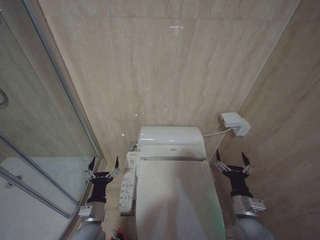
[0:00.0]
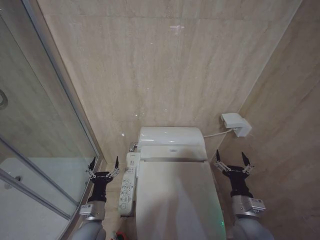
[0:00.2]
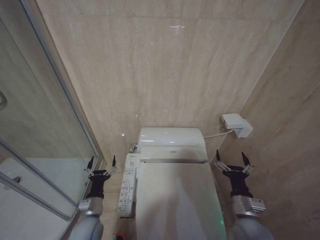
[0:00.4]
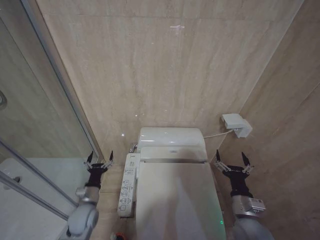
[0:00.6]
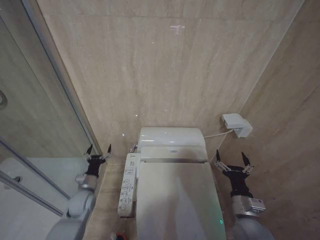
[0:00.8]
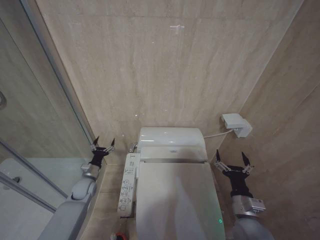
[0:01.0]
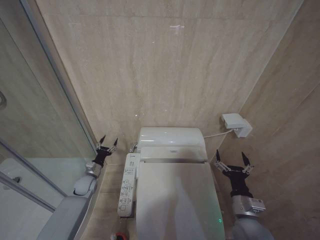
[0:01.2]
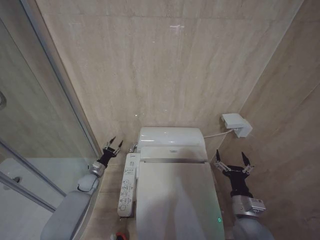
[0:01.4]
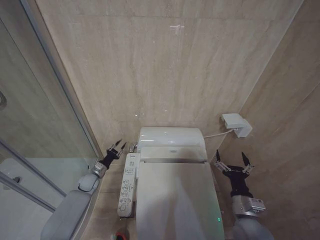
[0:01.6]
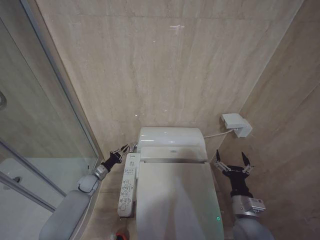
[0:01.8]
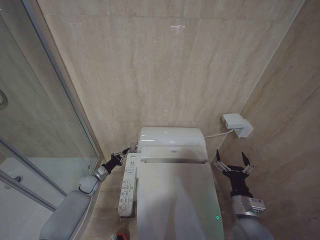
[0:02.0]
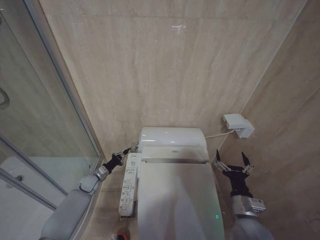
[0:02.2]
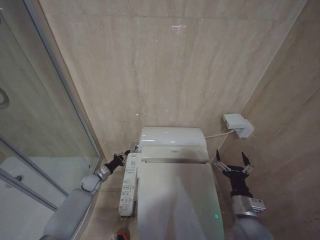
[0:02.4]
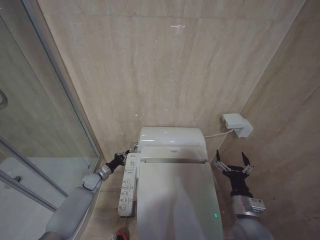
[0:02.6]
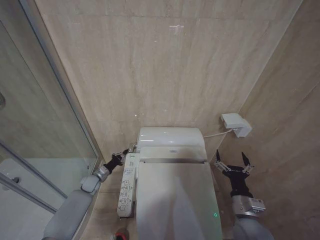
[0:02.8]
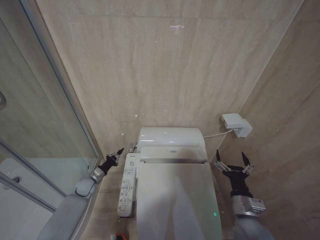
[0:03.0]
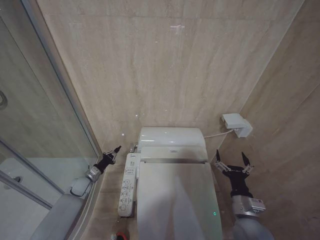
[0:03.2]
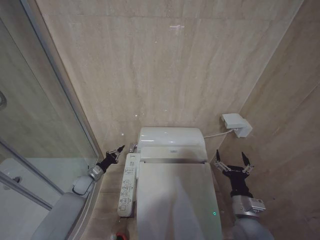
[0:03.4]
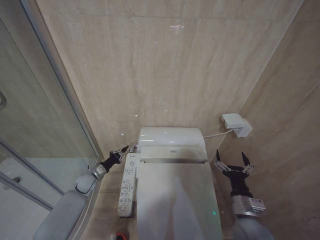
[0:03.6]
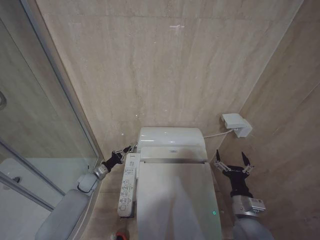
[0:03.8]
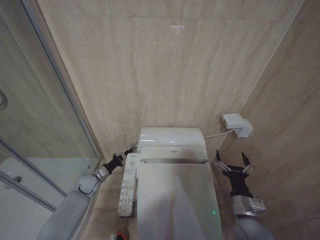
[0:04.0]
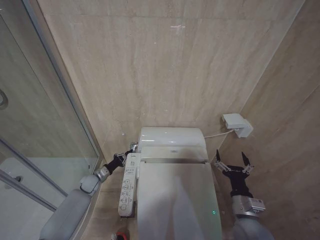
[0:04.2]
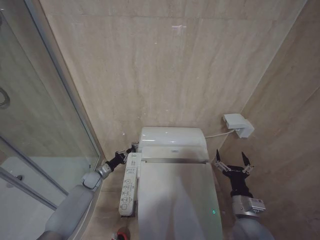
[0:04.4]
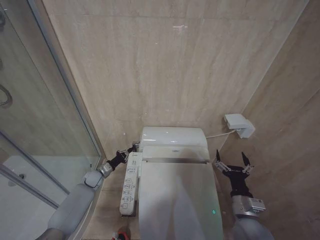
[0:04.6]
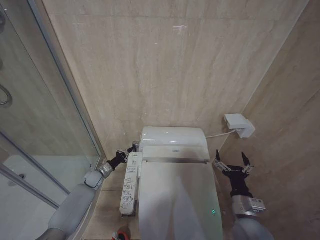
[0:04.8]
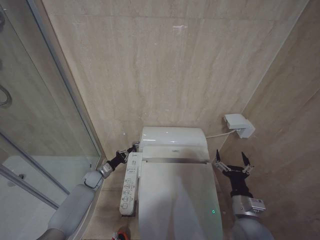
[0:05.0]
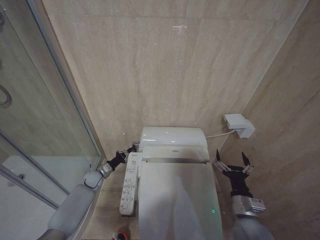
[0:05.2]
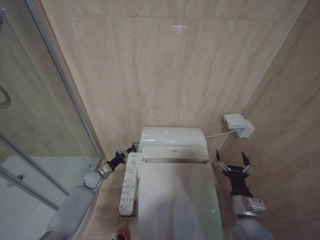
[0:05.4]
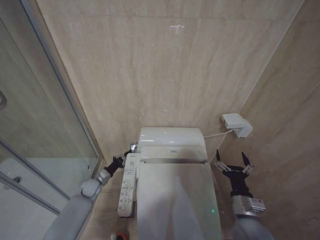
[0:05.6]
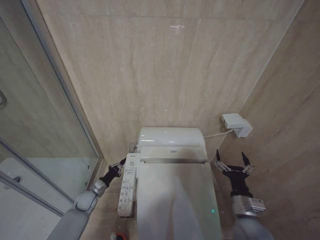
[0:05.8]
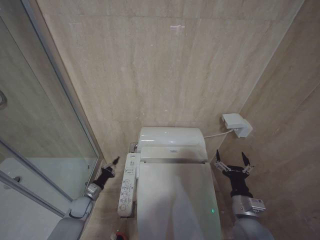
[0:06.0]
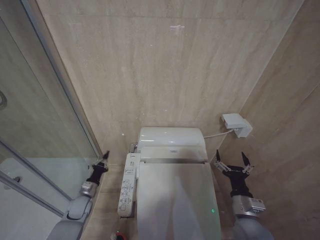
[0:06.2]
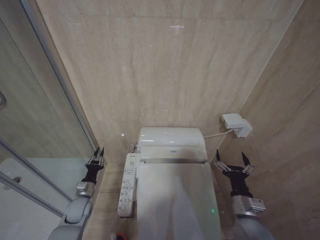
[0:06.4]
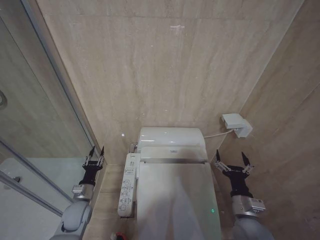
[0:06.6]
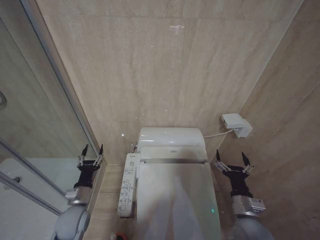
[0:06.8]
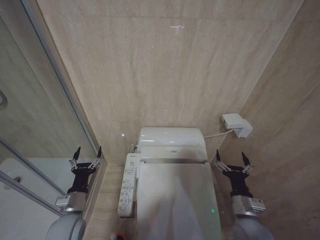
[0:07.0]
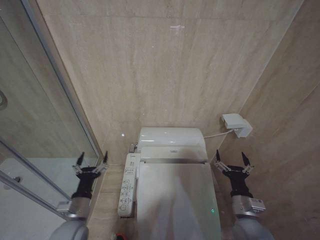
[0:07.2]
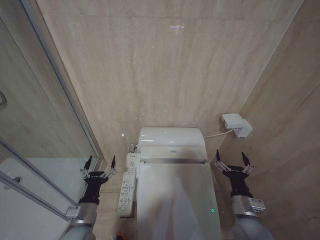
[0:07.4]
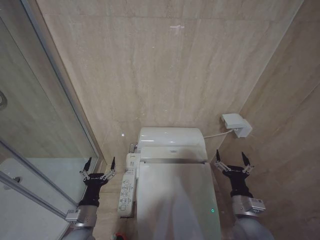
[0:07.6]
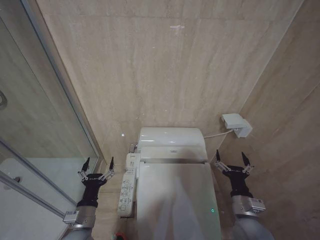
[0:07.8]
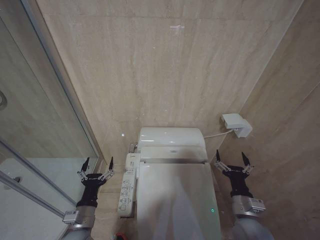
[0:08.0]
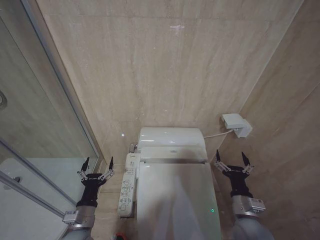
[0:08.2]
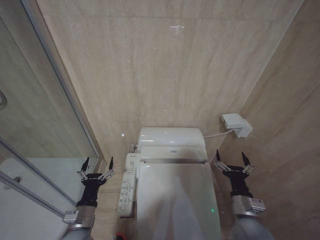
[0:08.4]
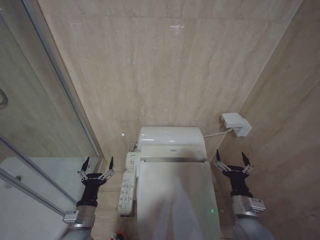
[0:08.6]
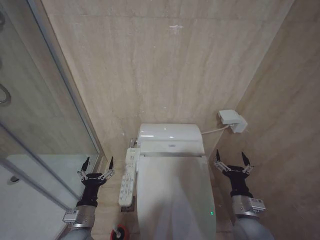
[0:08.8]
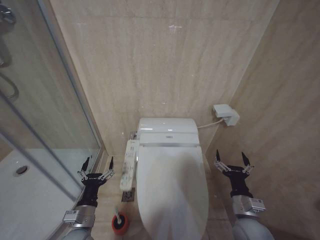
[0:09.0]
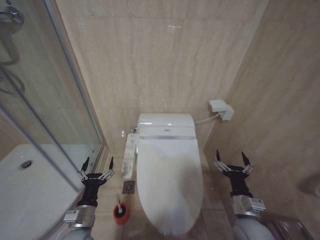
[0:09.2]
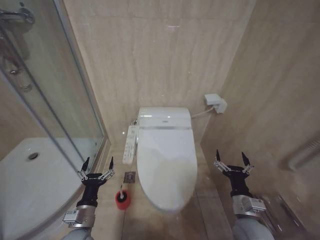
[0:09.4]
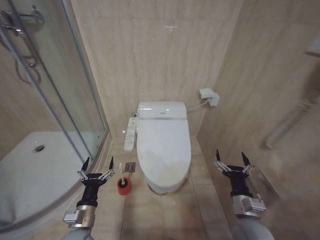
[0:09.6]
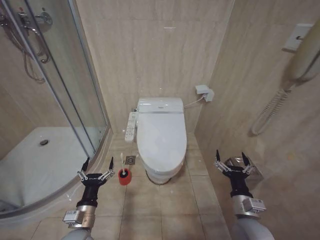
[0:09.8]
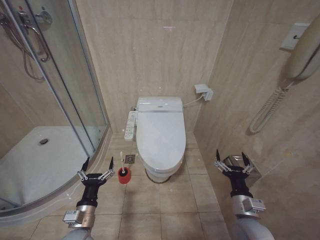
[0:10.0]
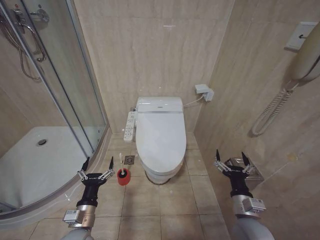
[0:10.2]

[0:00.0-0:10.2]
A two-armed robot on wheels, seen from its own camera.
Task of the whole recording: Open the toilet lid, clean the toilet bowl with a toilet brush, close the toilet lid, and flush.
0:00.0 to 0:01.4: The left gripper heads forward and to the left, covering roughly 25 cm.
0:01.4 to 0:03.0: The left gripper closes up.
0:03.0 to 0:04.4: The grippers move only a little.
0:04.4 to 0:05.8: The left gripper goes some 5 cm backward.
0:05.8 to 0:07.2: The left gripper goes some 25 cm backward and upward, and opens up.
0:07.2 to 0:08.8: The grippers move only a little.

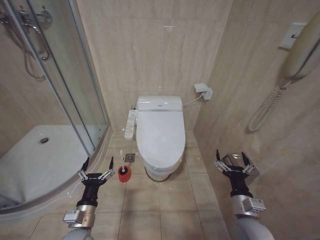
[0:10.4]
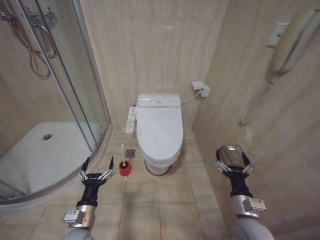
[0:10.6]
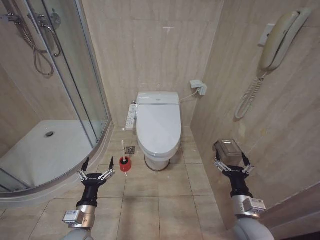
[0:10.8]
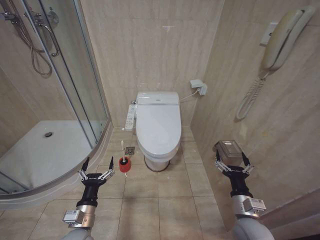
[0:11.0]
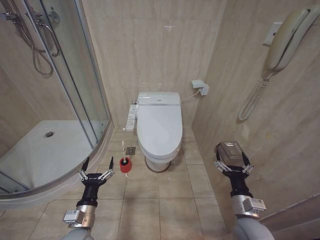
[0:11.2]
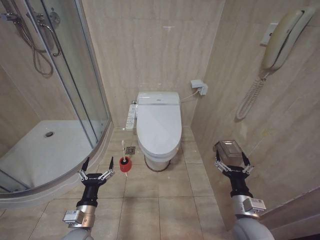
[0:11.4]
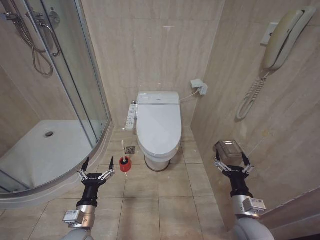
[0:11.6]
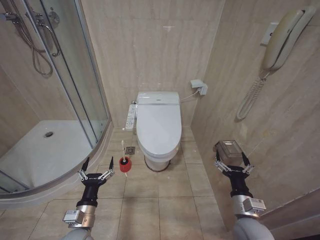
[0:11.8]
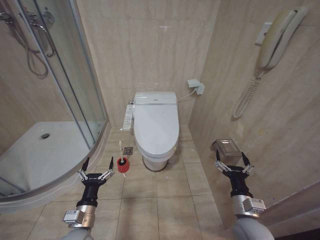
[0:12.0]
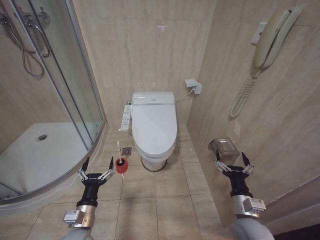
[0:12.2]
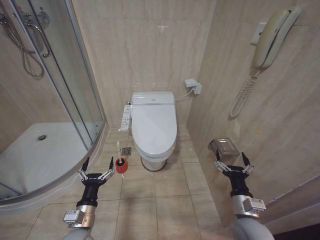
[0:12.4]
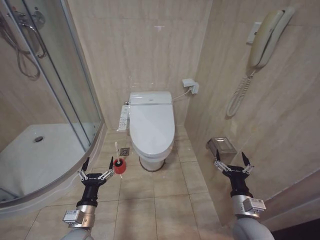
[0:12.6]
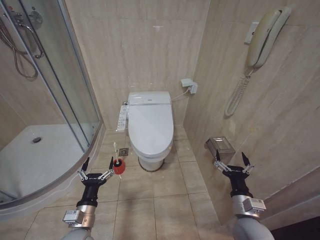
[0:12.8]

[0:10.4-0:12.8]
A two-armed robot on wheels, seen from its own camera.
Task of the whole recording: Open the toilet lid, clean the toilet bowl with a toilet brush, close the toilet lid, and flush.
0:10.4 to 0:12.8: Neither gripper changes place.
